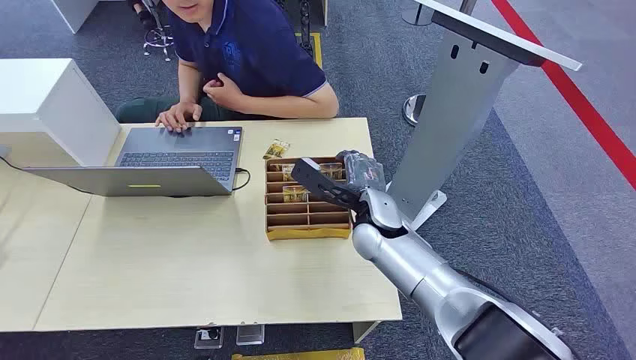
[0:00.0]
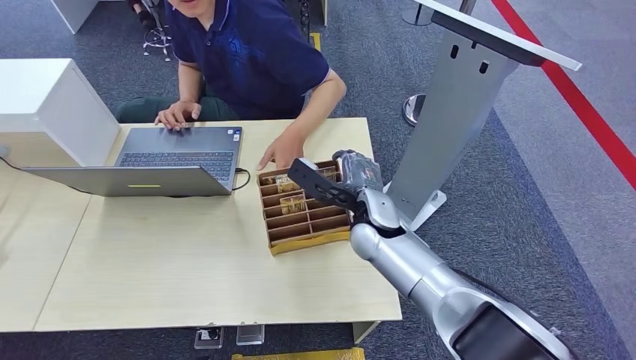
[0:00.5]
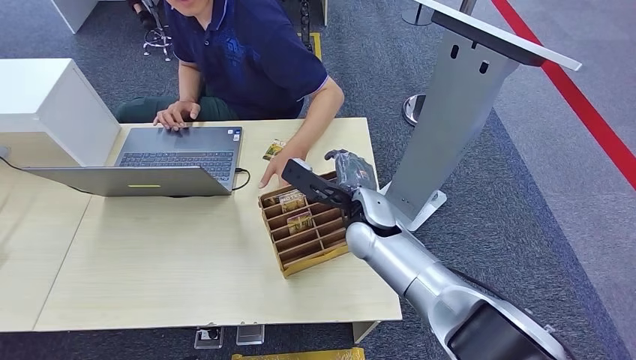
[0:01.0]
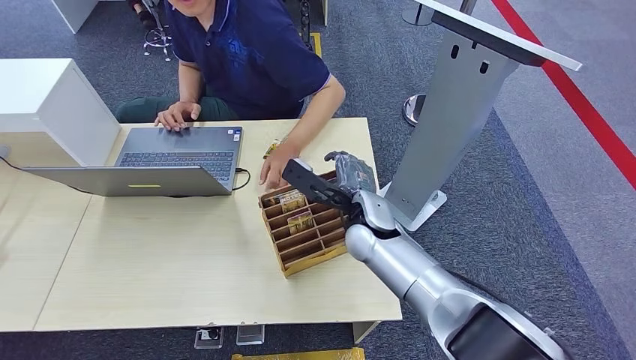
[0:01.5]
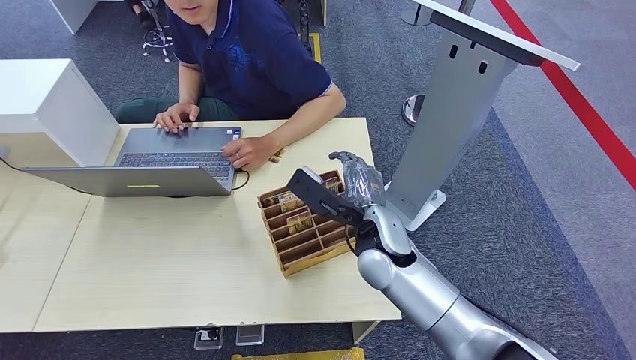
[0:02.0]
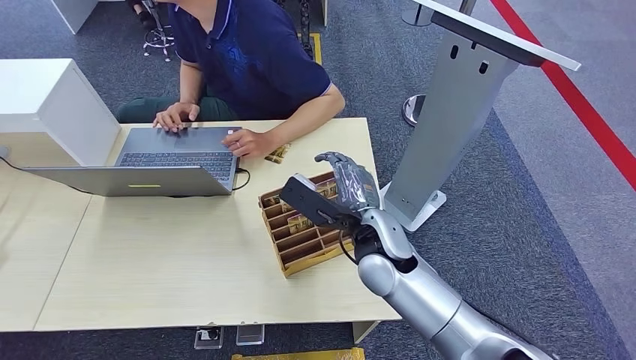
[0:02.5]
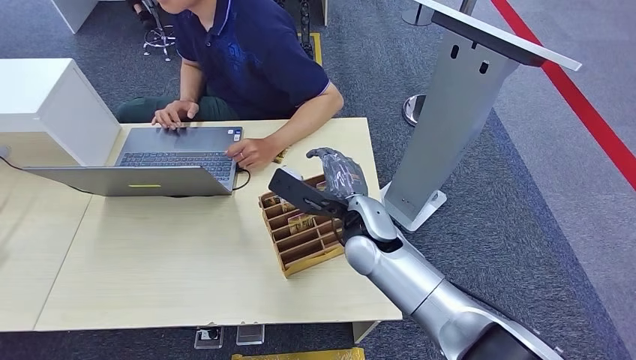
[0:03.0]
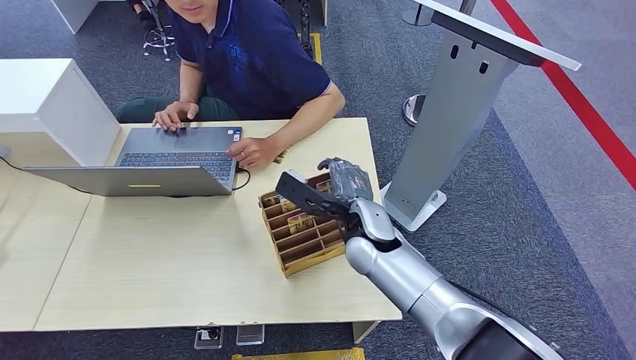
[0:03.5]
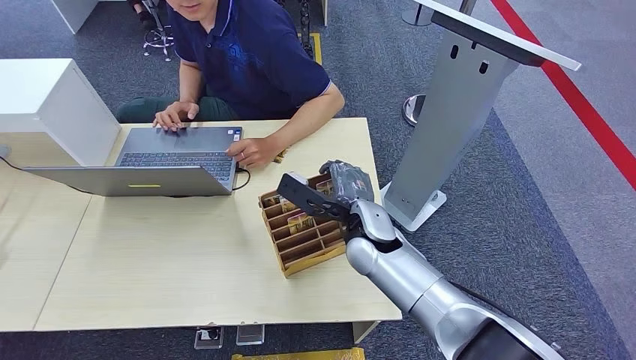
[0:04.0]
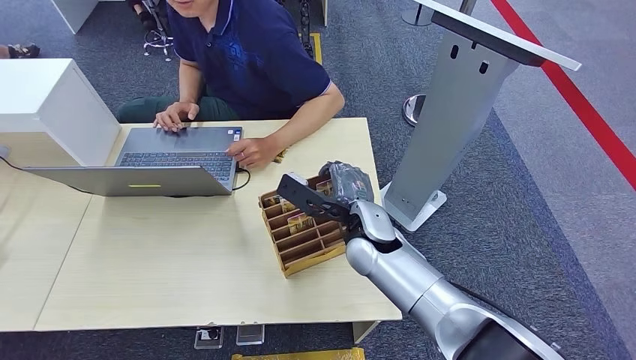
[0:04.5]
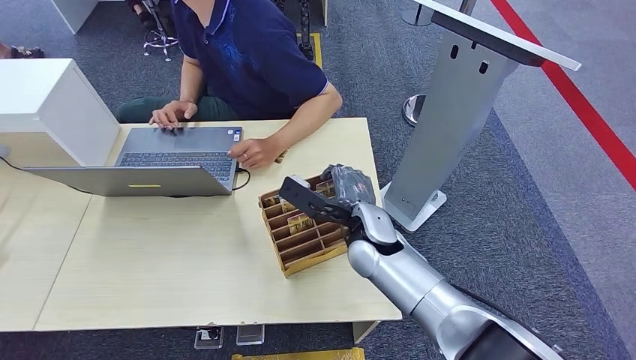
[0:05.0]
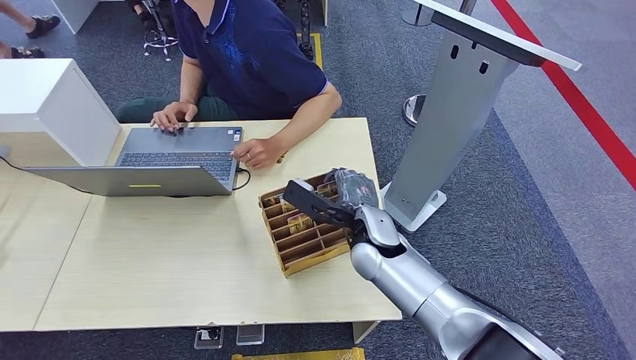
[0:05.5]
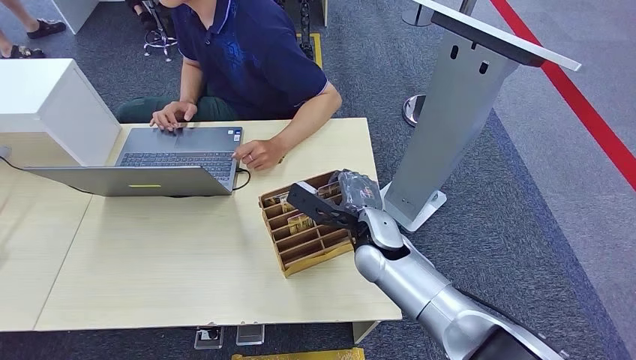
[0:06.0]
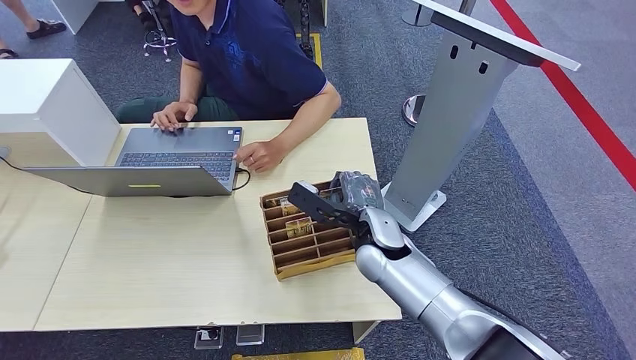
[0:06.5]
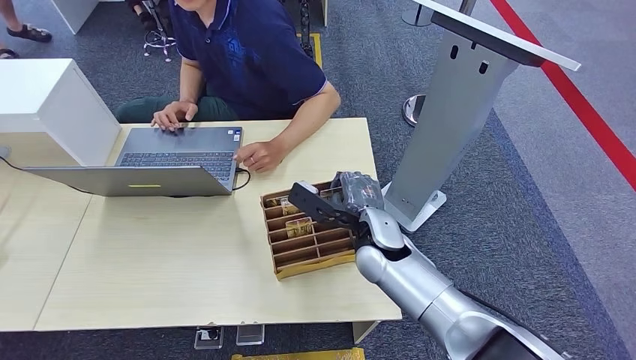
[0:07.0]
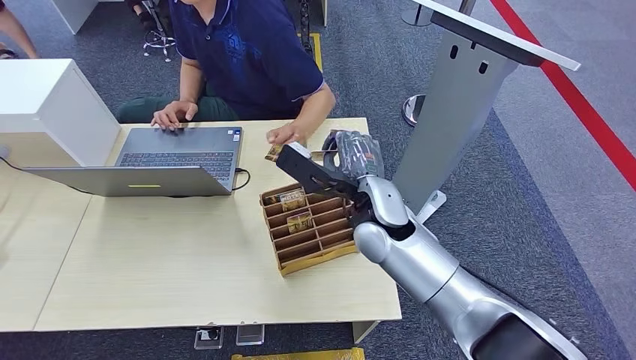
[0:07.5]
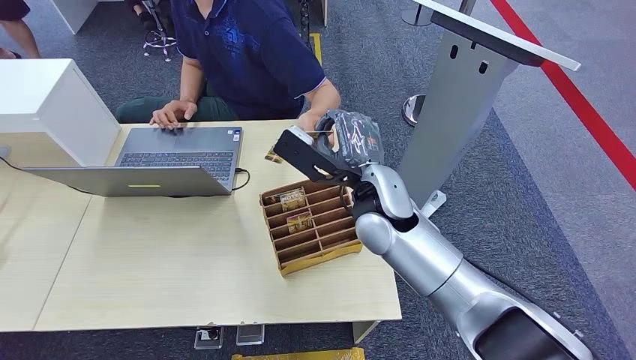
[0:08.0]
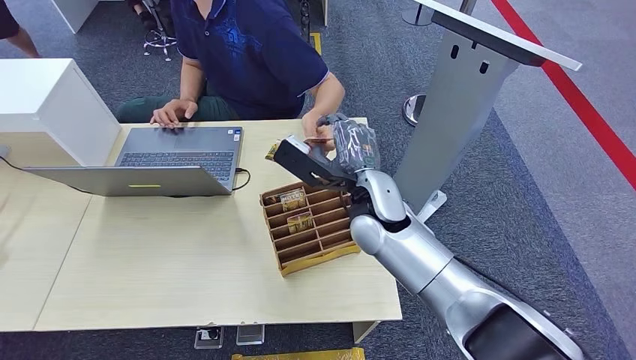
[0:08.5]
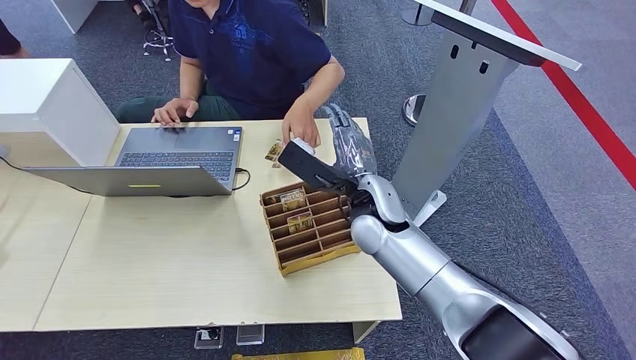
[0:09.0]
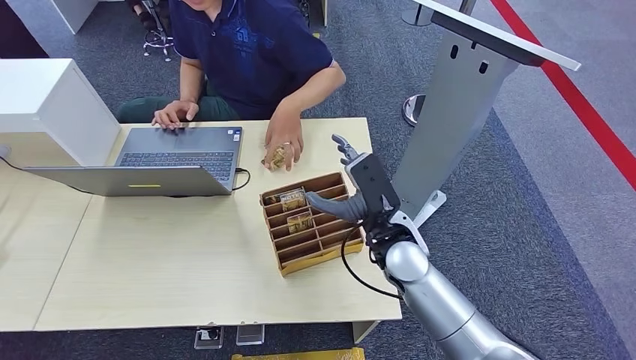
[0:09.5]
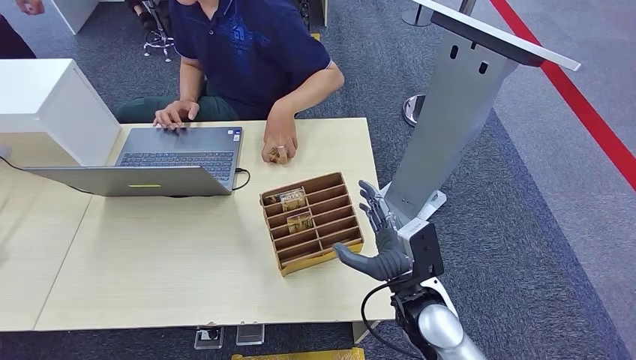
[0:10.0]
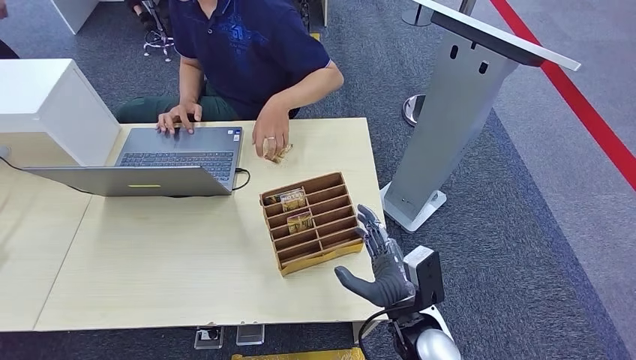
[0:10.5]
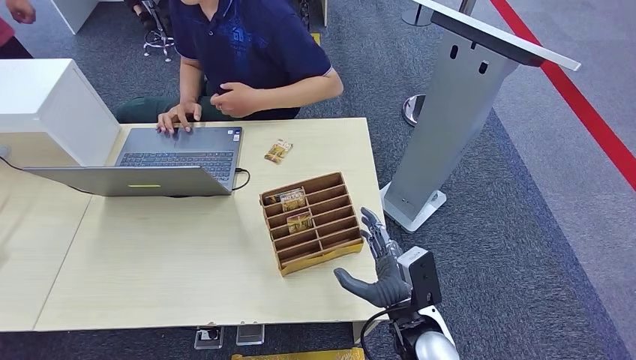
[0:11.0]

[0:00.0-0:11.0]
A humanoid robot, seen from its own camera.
Task of the whole recording: Pick up the card and hand it to the target person.
Step, 0:00.0 to 0:08.0: Pick up the key card from the card box.
Step, 0:08.5 to 0:11.0: Hand the key card to the target.
0:02.0 to 0:05.5: The hands make only small movements.
0:05.5 to 0:07.5: The right hand heads upward, covering about 5 cm.
0:07.5 to 0:09.0: The hands stay close to where they were, moving slightly.
0:09.0 to 0:11.0: The right hand travels backward, downward and to the right by about 25 cm.
